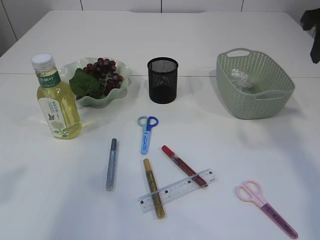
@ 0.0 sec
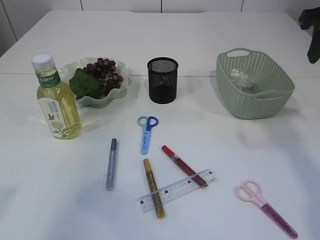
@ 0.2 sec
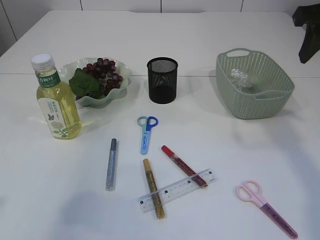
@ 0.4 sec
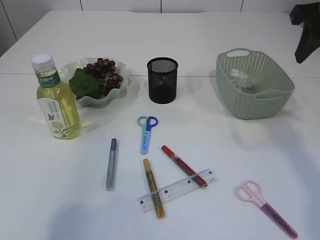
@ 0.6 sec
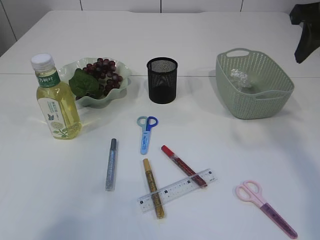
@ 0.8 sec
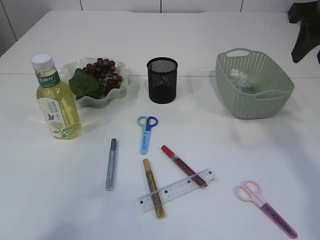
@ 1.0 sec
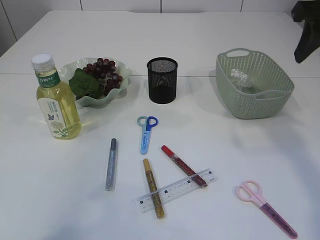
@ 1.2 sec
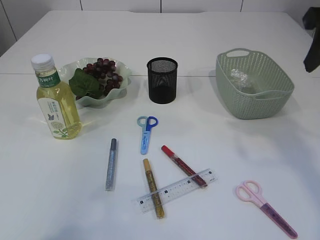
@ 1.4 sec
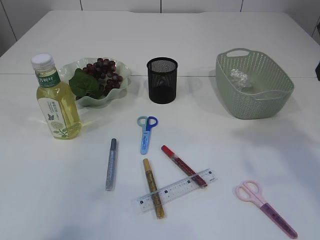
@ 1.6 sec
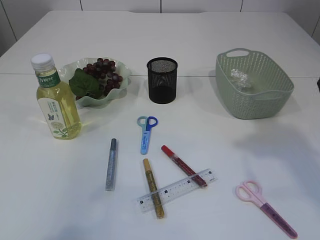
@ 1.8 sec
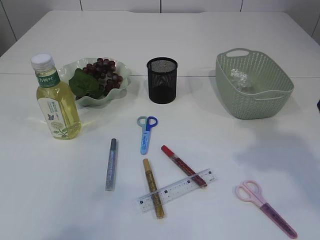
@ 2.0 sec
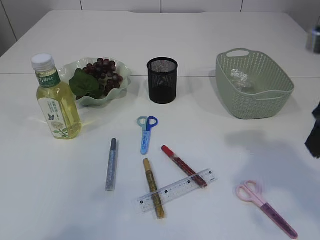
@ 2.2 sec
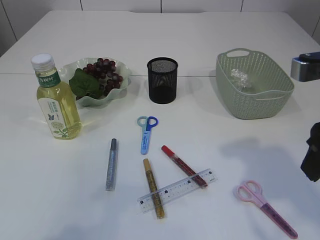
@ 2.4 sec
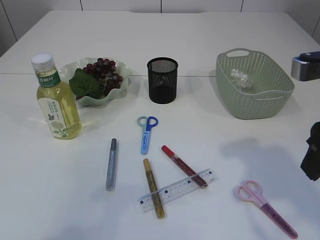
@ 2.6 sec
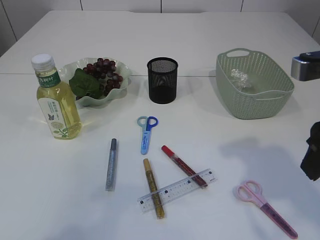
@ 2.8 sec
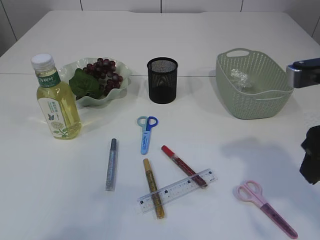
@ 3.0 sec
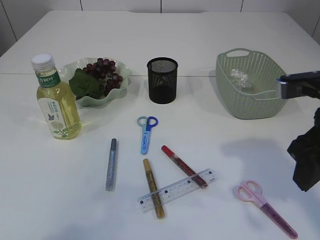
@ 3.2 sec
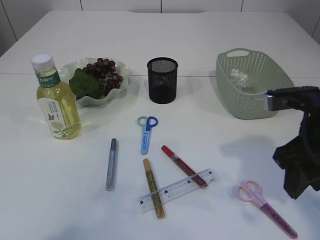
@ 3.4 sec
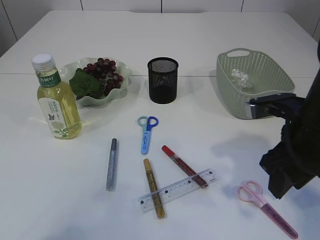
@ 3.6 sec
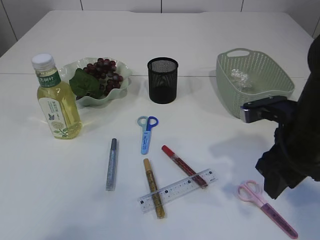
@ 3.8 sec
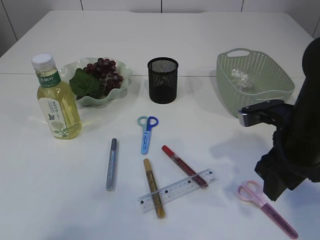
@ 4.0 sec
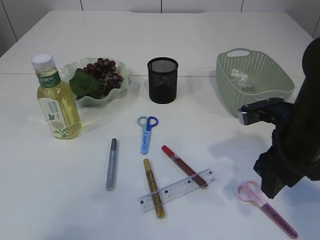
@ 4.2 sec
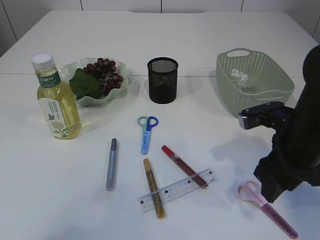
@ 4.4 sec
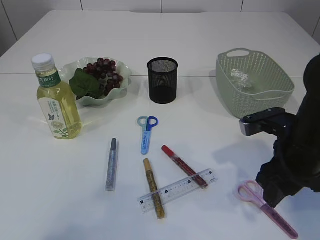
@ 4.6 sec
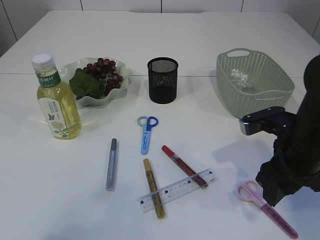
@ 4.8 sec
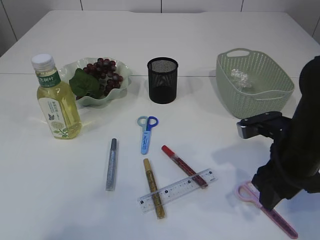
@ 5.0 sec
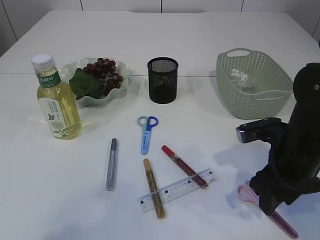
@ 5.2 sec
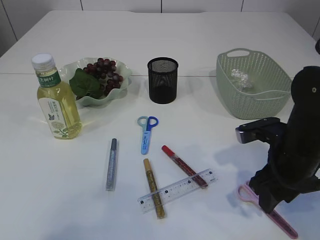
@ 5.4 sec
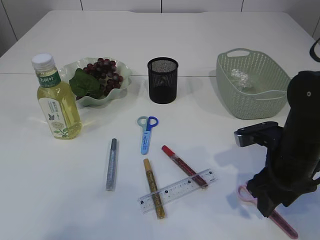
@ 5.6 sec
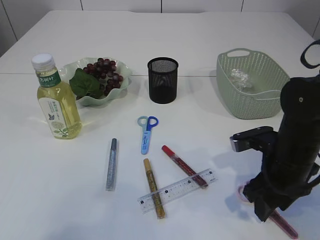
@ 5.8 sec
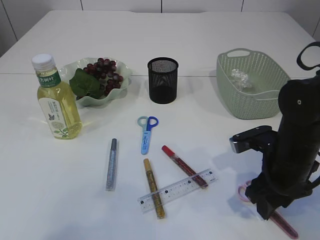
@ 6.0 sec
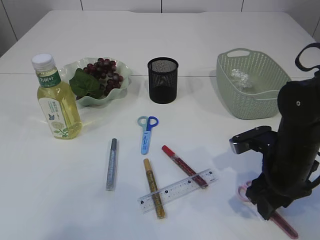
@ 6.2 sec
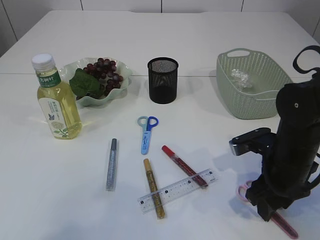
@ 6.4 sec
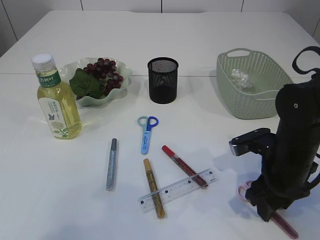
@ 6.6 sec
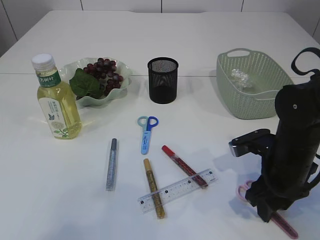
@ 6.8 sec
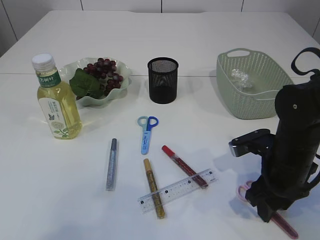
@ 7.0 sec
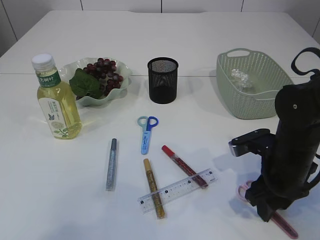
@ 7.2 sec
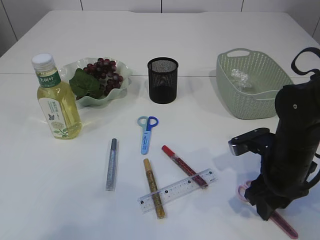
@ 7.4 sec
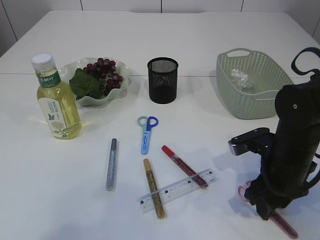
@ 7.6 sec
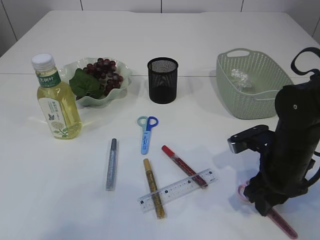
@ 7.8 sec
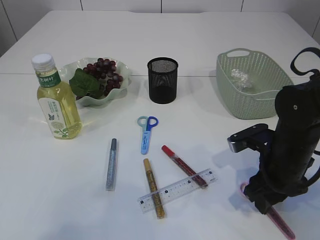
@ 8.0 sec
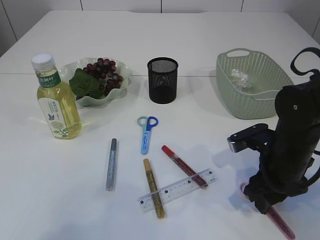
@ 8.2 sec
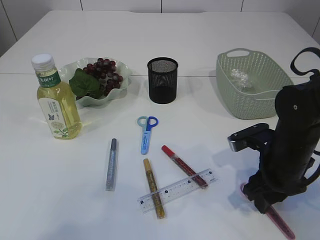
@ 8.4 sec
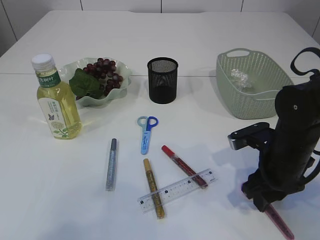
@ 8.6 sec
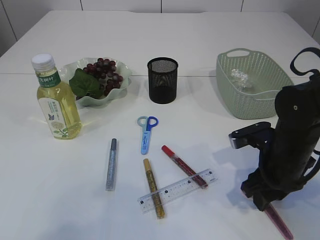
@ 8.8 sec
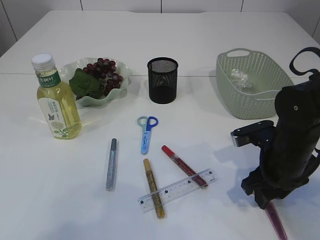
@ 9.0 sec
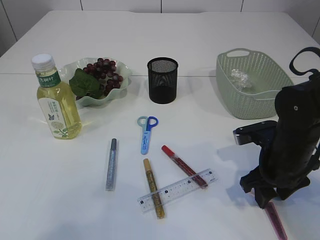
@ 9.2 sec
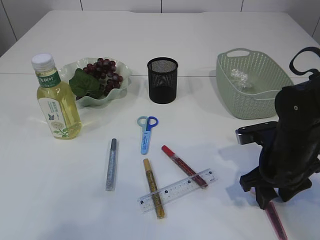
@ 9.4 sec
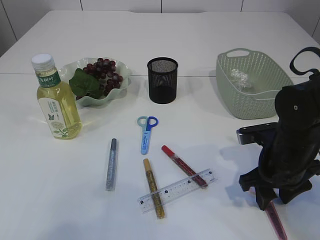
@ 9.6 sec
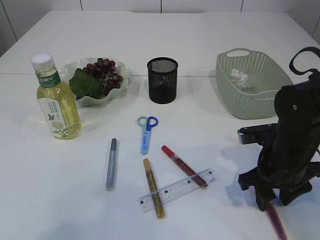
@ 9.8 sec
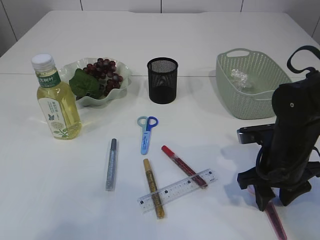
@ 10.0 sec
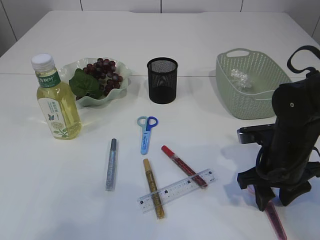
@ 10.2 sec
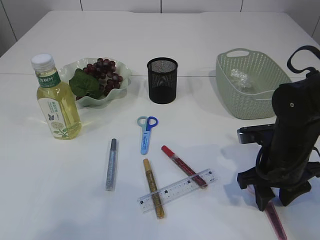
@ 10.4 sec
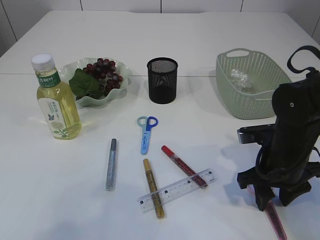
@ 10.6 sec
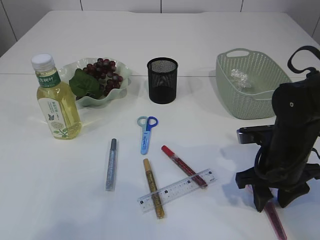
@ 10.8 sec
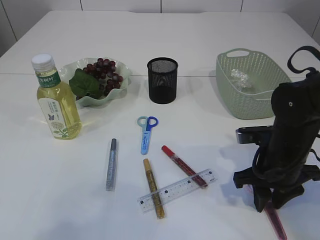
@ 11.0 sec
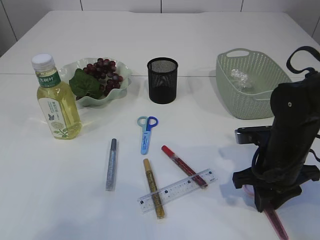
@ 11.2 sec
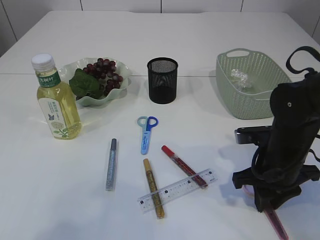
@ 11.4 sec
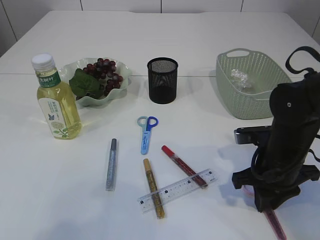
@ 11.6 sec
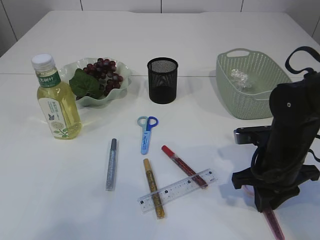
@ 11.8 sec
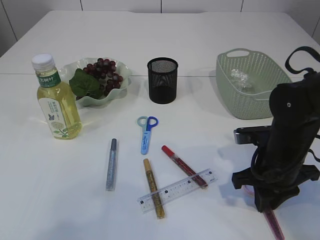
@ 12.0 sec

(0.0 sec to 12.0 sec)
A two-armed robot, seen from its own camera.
0.0 sec - 1.6 sec: The right gripper travels backward by some 5 cm.
1.6 sec - 3.0 sec: The right gripper shifts approximately 10 cm downward and backward.
3.0 sec - 4.4 sec: The right gripper goes approximately 10 cm downward and forward.
4.4 sec - 6.0 sec: The right gripper is displaced downward by some 5 cm.
6.0 sec - 7.6 sec: Both grippers stay put.
7.6 sec - 10.4 sec: There are only small adjustments of the grippers.
10.4 sec - 12.0 sec: The right gripper closes up.

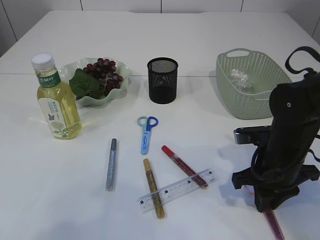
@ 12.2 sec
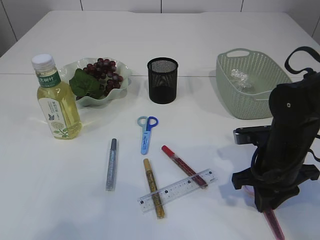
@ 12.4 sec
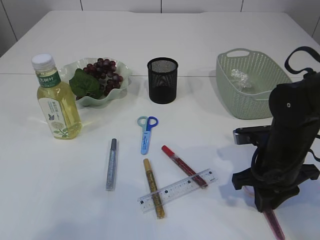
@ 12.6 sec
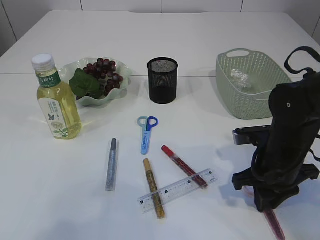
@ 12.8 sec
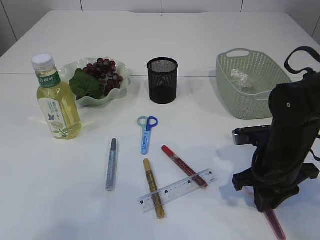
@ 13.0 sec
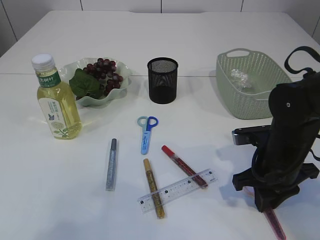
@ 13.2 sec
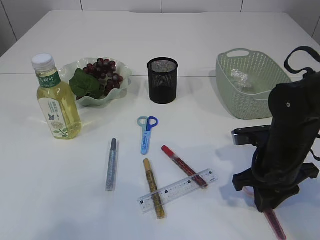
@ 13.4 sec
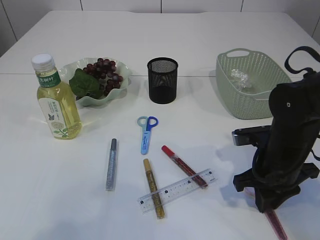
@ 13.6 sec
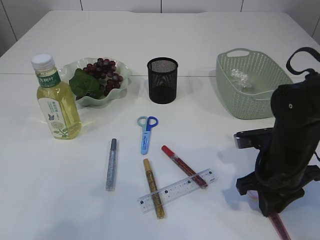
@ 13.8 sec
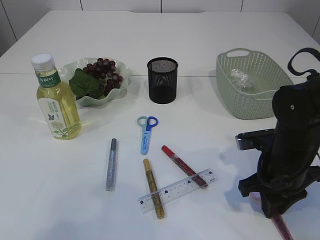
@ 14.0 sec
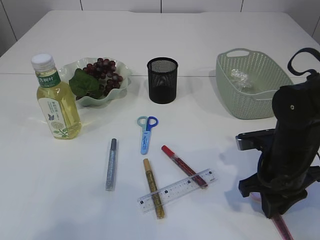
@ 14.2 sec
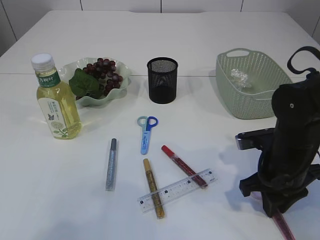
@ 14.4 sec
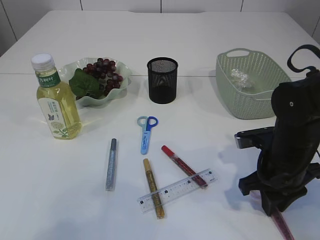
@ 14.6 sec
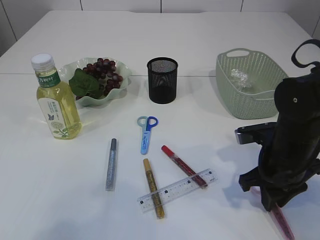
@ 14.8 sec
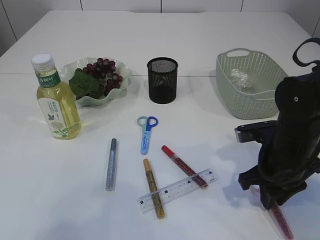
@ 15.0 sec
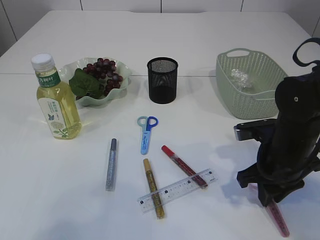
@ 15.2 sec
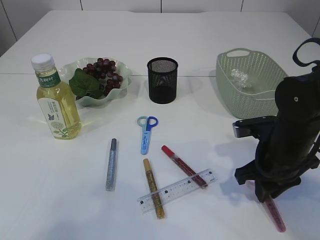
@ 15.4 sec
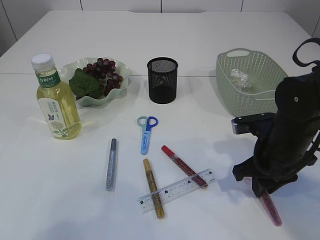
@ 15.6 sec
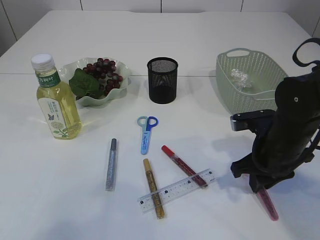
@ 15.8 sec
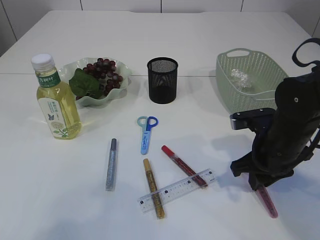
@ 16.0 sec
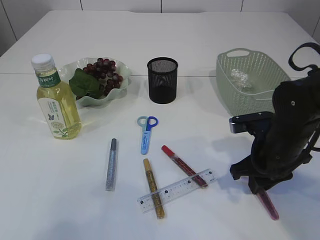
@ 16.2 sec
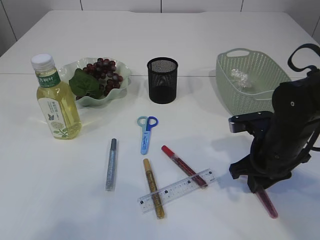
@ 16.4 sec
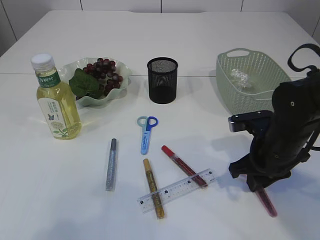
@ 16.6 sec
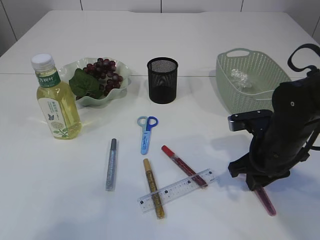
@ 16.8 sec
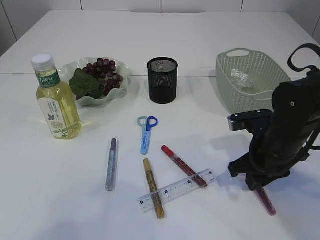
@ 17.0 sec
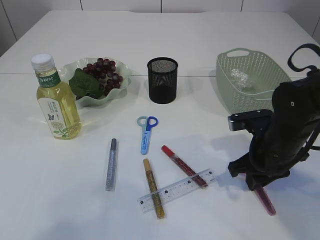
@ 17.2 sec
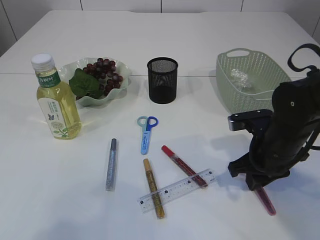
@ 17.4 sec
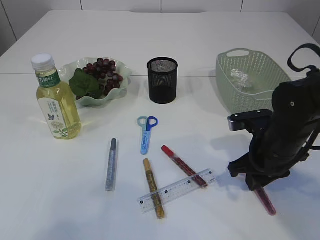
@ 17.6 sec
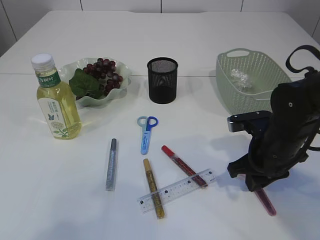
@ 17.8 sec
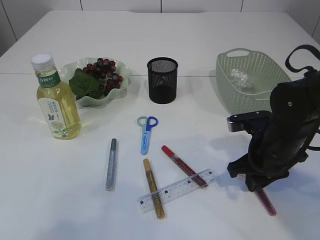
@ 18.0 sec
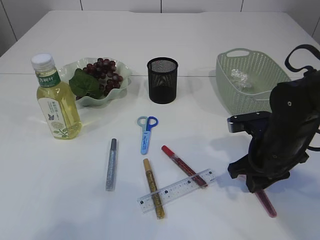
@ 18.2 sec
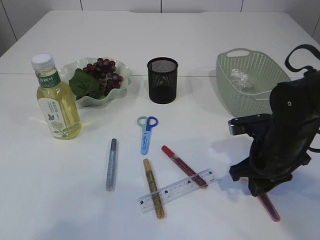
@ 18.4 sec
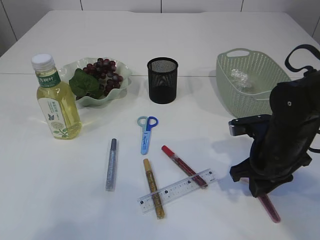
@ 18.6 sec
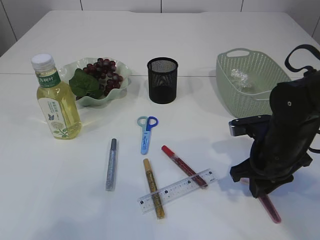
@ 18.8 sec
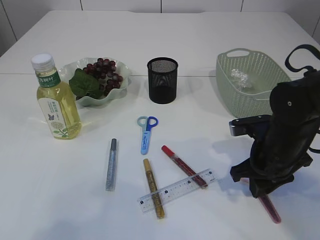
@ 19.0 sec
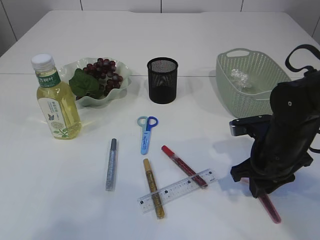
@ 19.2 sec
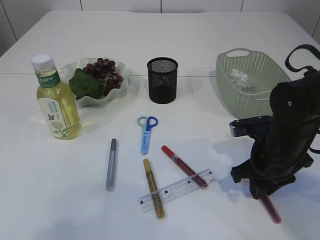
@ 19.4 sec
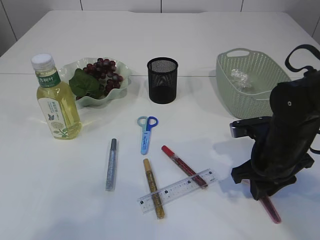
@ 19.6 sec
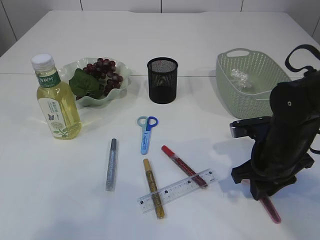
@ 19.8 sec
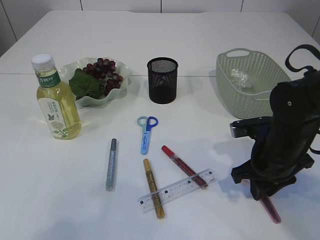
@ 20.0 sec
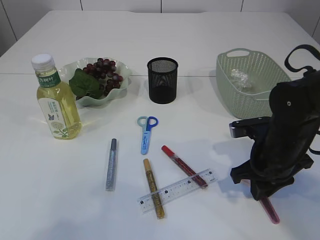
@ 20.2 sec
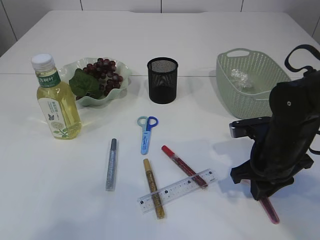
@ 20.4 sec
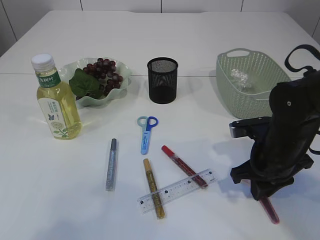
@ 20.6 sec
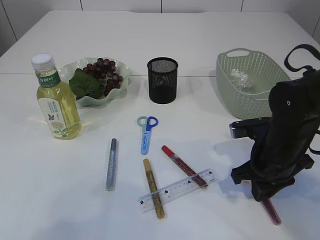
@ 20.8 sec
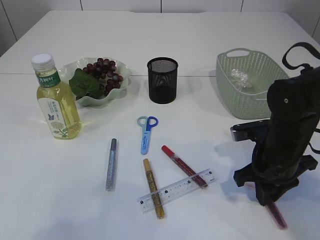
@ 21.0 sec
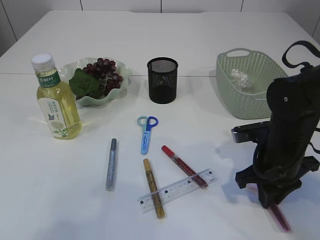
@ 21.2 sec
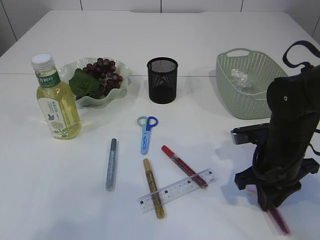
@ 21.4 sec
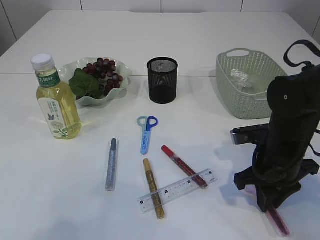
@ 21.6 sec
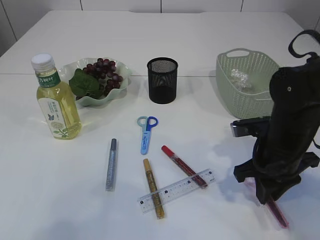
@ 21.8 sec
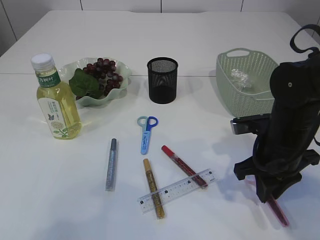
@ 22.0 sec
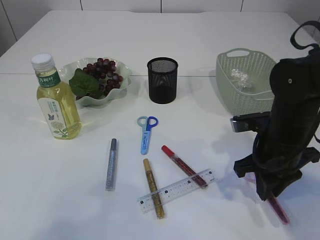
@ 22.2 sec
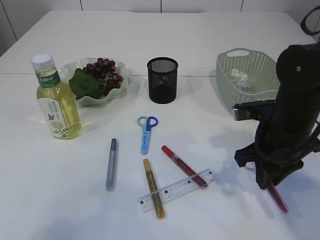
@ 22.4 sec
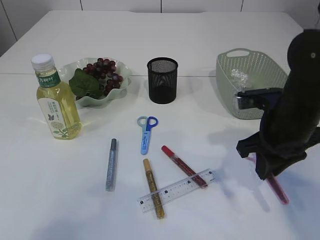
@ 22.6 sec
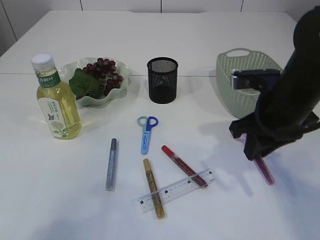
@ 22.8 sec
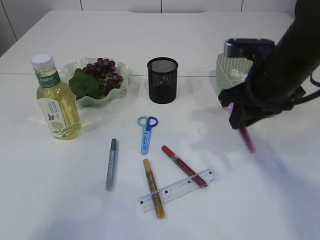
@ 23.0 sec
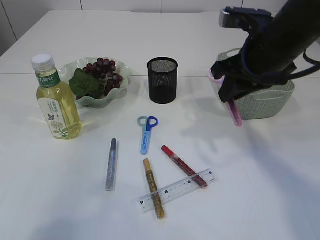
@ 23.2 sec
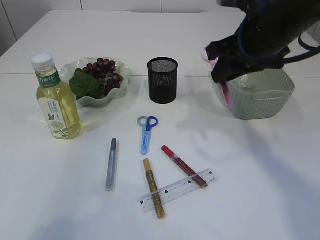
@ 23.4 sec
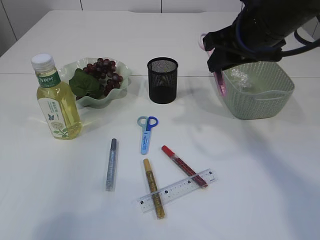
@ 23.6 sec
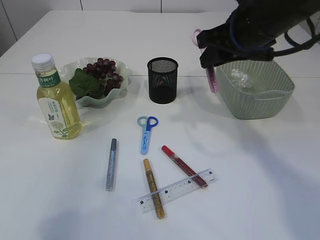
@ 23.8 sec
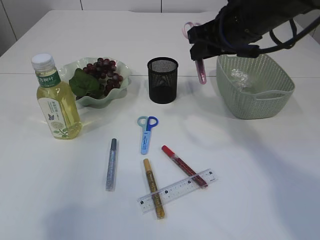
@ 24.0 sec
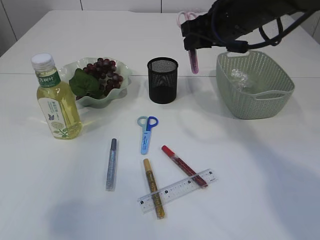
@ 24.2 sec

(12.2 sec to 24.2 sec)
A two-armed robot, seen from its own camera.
Step, 12.2 sec - 22.8 sec: pick up the pink scissors.
12.2 sec - 13.8 sec: Neither gripper changes place.
13.8 sec - 15.2 sec: Both grippers stay put.
15.2 sec - 16.6 sec: The grippers make only small movements.
16.6 sec - 18.2 sec: Both grippers stay about where they are.
18.2 sec - 19.8 sec: Both grippers stay about where they are.
19.8 sec - 21.2 sec: The grippers stay close to where they were, moving slightly.
21.2 sec - 22.6 sec: The right gripper goes roughly 5 cm upward.
22.6 sec - 24.2 sec: The right gripper moves forward, upward and to the left, approximately 15 cm.
